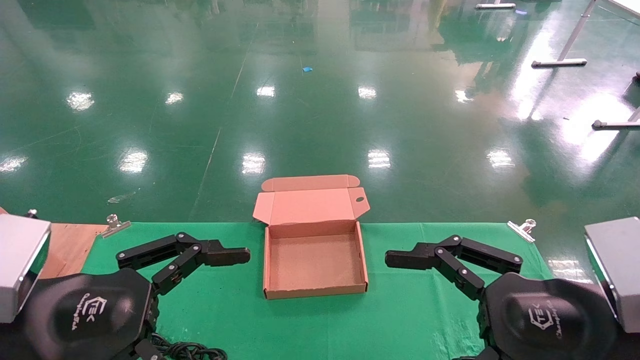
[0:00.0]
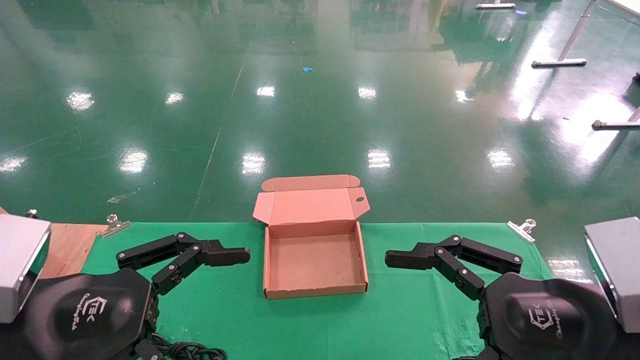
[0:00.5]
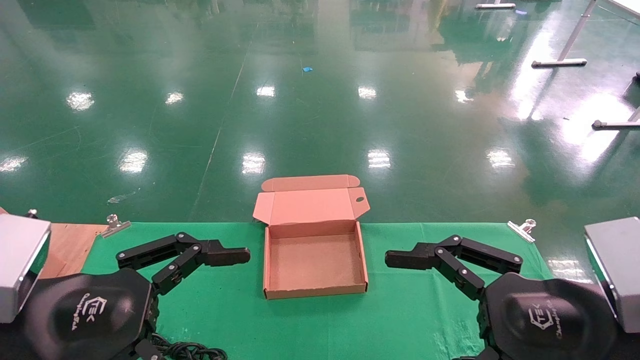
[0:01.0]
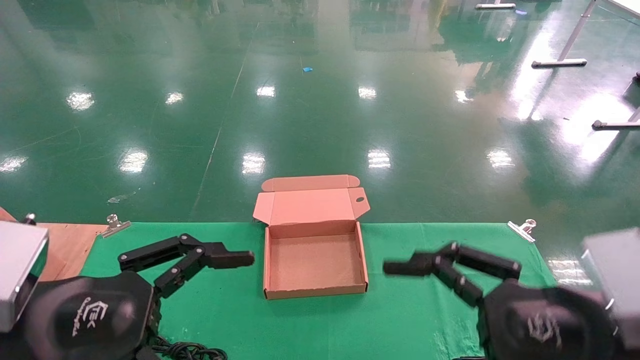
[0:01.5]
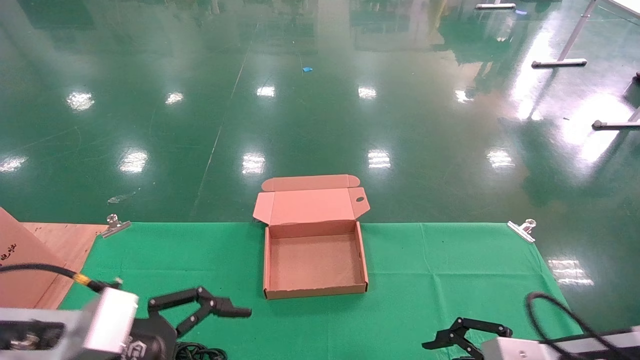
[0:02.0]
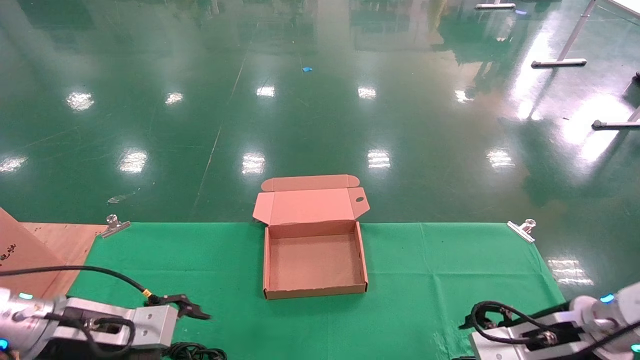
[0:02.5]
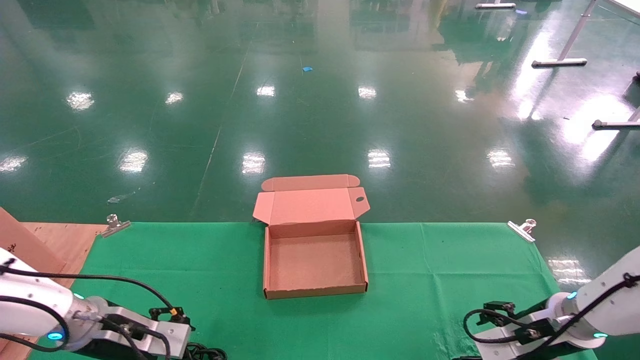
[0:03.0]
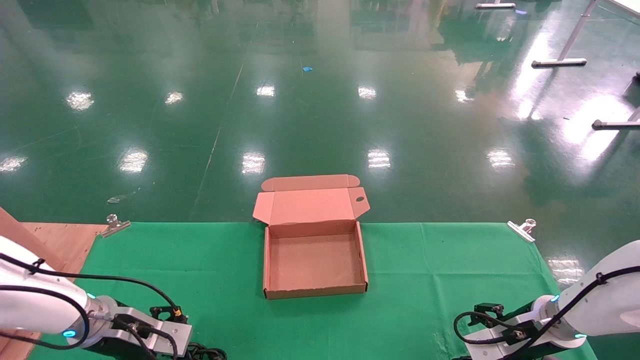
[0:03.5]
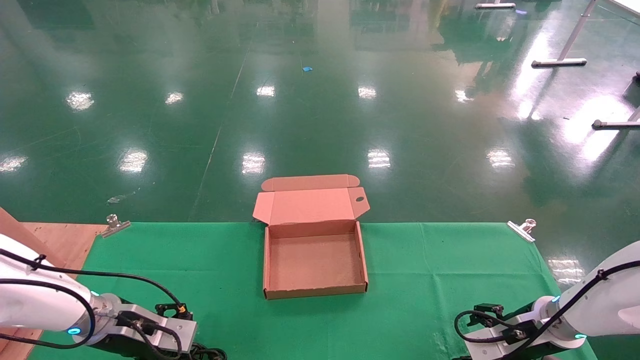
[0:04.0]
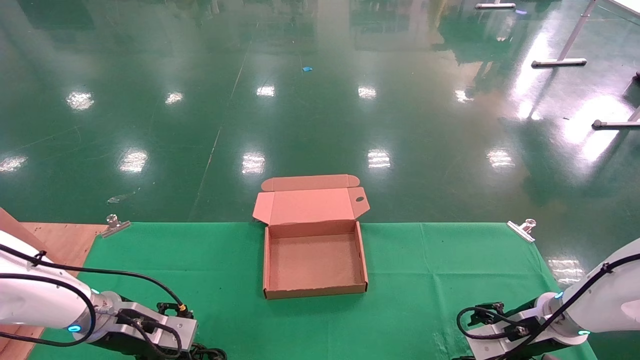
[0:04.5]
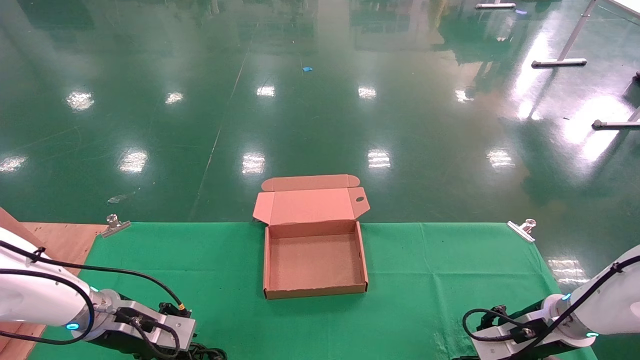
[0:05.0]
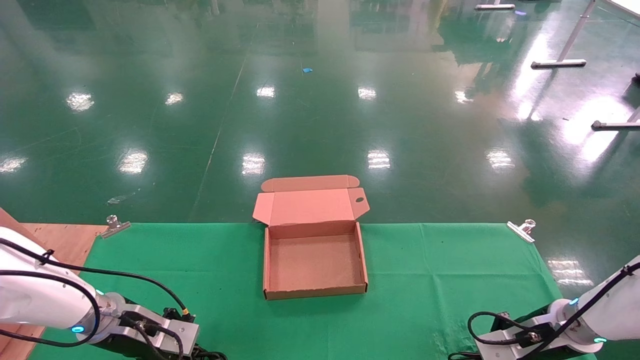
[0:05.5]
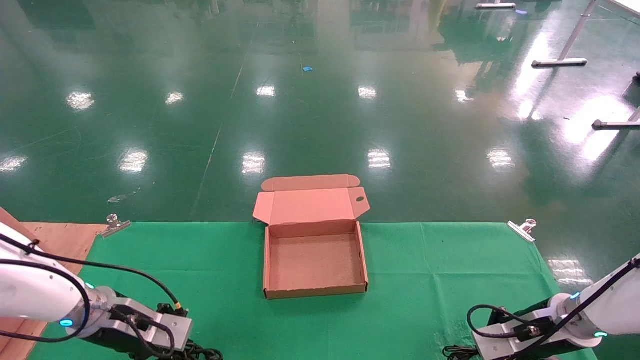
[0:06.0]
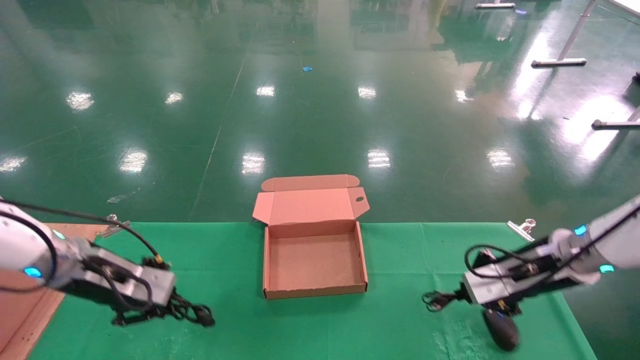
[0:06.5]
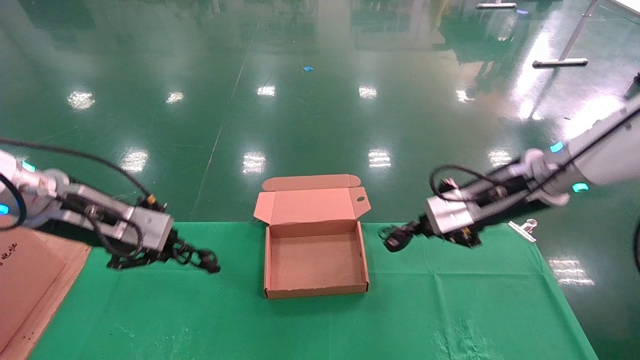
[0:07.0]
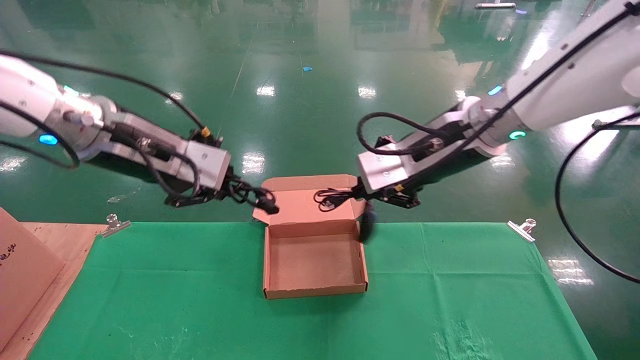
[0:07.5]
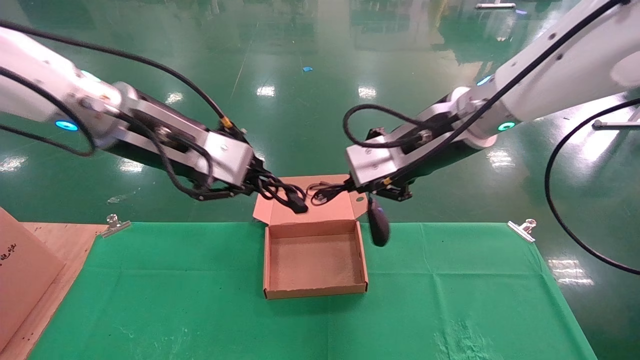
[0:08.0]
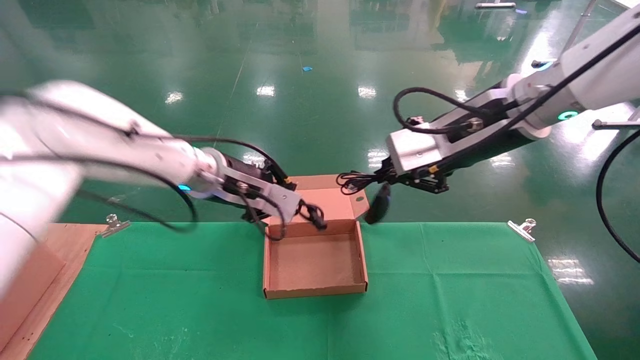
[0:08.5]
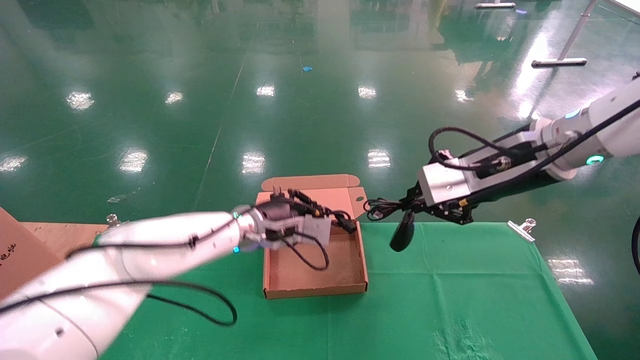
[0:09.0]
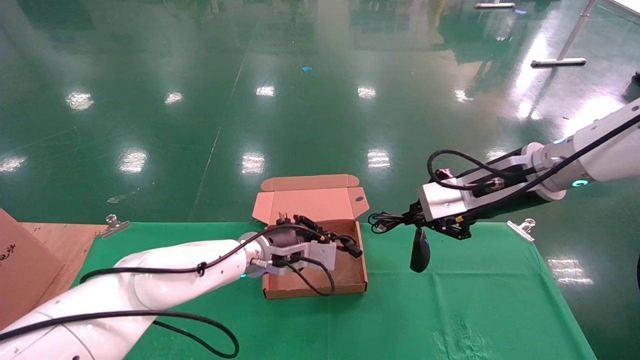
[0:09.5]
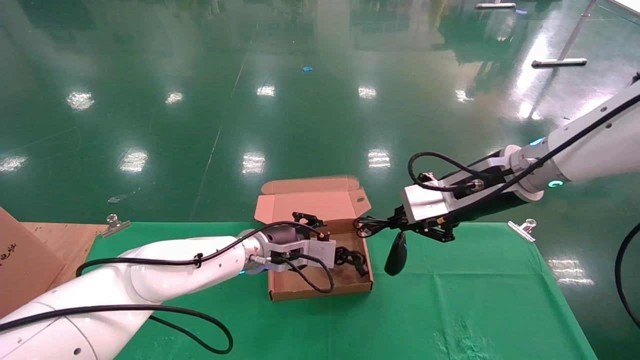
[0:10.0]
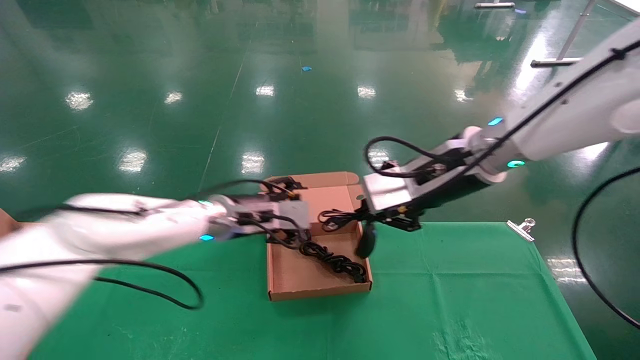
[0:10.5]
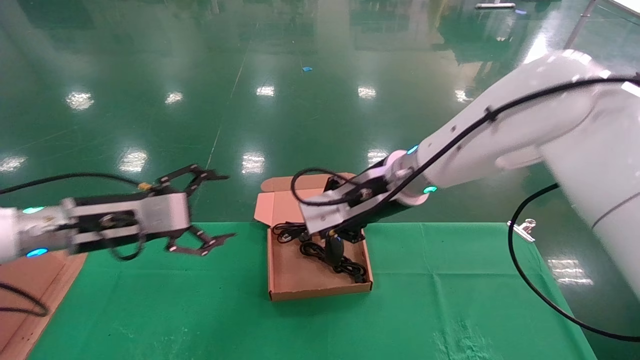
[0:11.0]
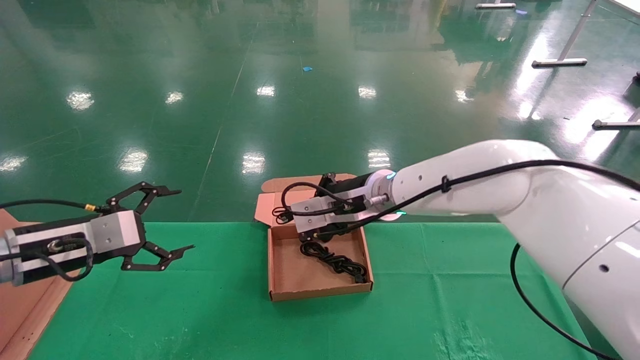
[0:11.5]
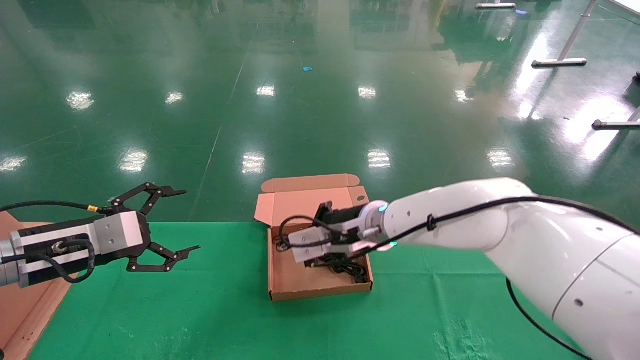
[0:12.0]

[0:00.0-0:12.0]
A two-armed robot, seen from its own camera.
Step, 0:02.5 to 0:07.0: Grab and lift both the mouse and power cord from the accessory packaging area at the same time.
0:00.0 to 0:02.0: The right gripper heads downward and forward, covering about 10 cm. Meanwhile the left gripper is displaced downward by approximately 5 cm.
0:02.0 to 0:04.0: Both grippers move forward and downward, some 20 cm.
0:04.0 to 0:06.0: The right gripper closes its fingers; the left gripper closes its fingers.
0:06.0 to 0:08.0: The right gripper moves upward and to the left, roughly 35 cm. The left gripper travels upward and to the right by approximately 30 cm.
0:08.0 to 0:10.0: The left gripper moves downward, forward and to the right, roughly 25 cm. The right gripper goes about 10 cm to the right and downward.
0:10.0 to 0:12.0: The right gripper travels to the left and downward by some 20 cm. Meanwhile the left gripper shifts approximately 30 cm to the left and backward, and opens.

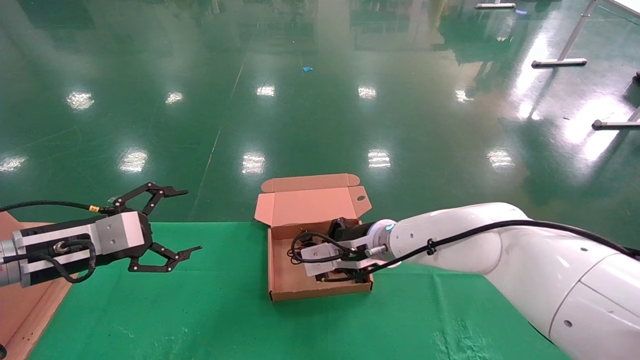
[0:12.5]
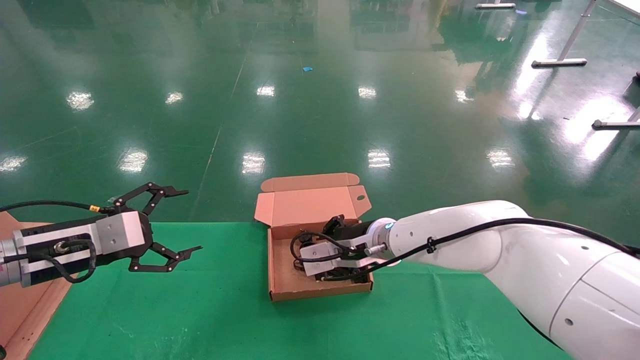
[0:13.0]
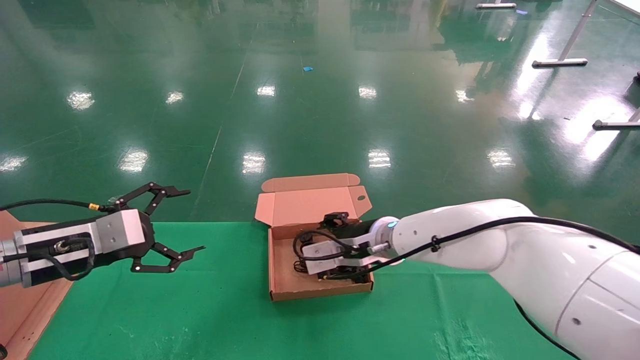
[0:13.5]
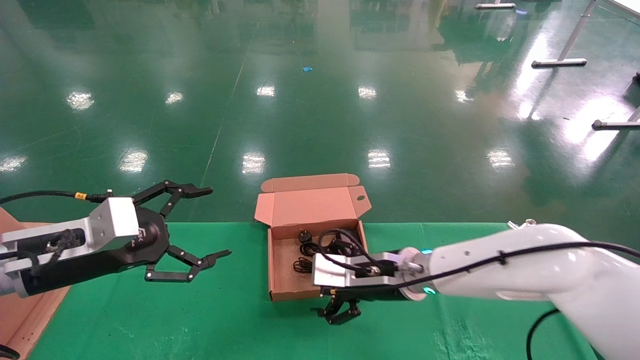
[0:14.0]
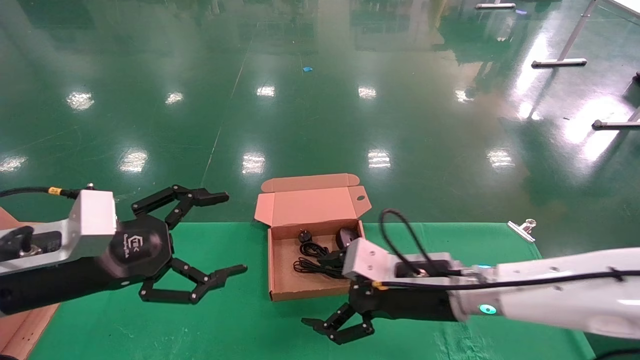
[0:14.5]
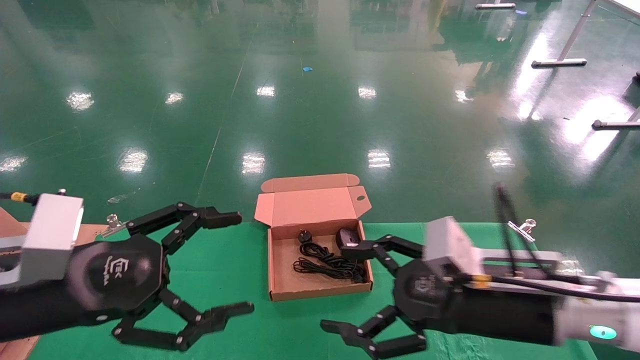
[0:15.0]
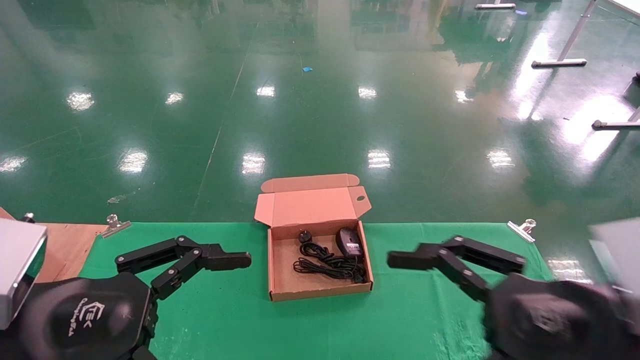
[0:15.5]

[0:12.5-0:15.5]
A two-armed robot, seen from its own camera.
0:12.5 to 0:14.0: The left gripper ends up approximately 5 cm from where it was, while the right gripper shifts by approximately 5 cm, and opens up.
0:14.0 to 0:15.5: The left gripper is displaced backward and to the right by roughly 15 cm; the right gripper travels backward and to the right by about 25 cm.
